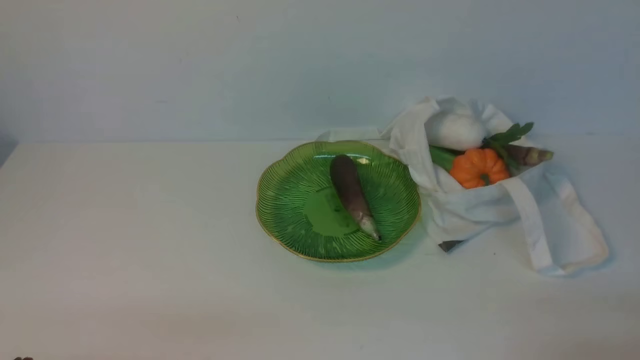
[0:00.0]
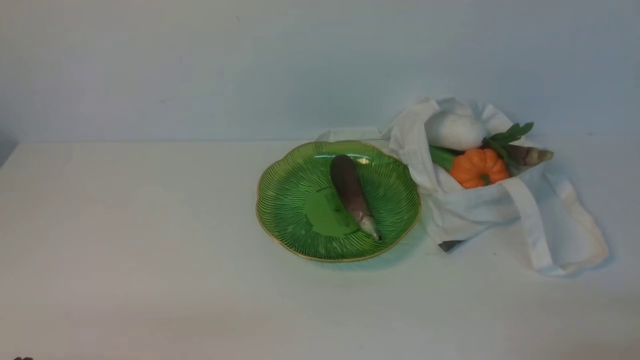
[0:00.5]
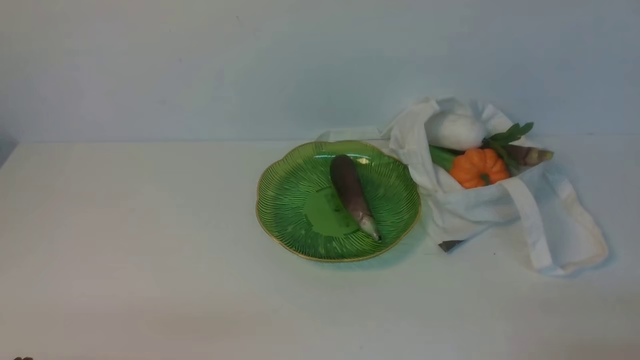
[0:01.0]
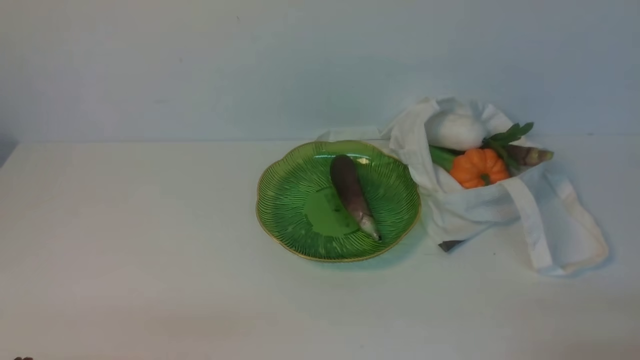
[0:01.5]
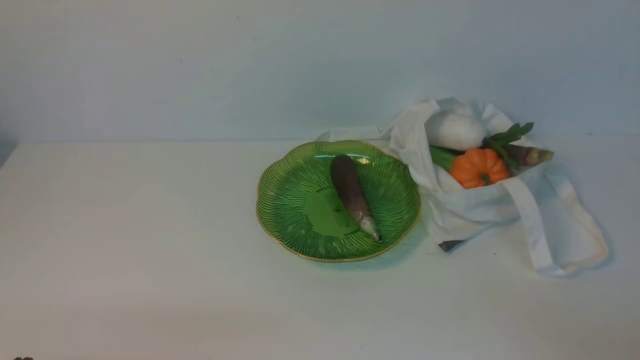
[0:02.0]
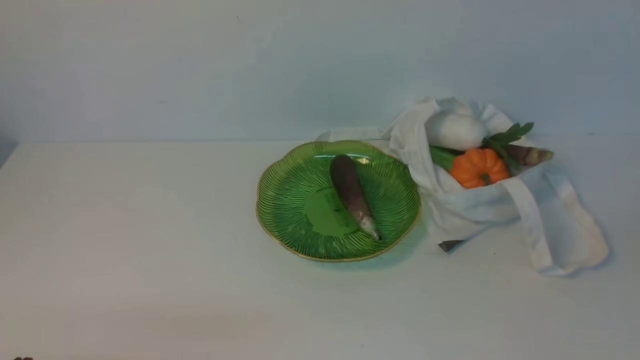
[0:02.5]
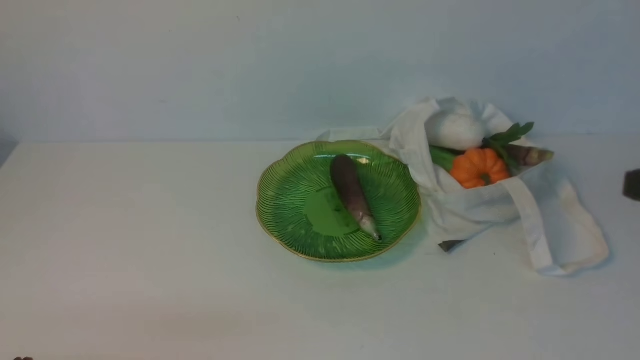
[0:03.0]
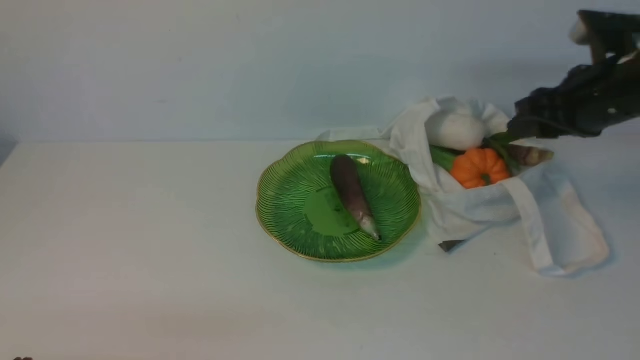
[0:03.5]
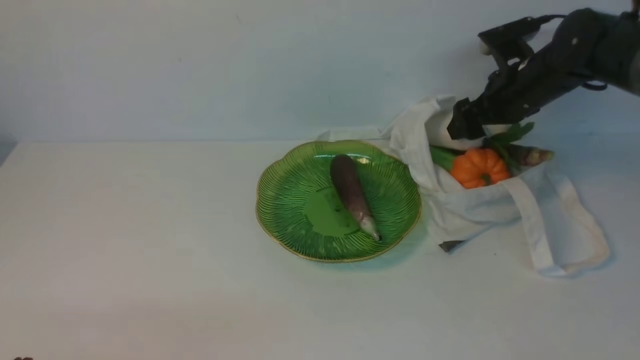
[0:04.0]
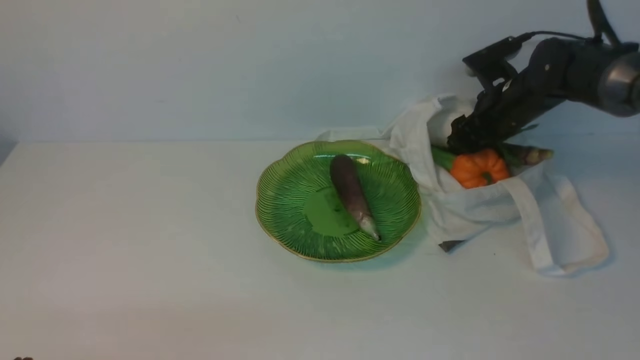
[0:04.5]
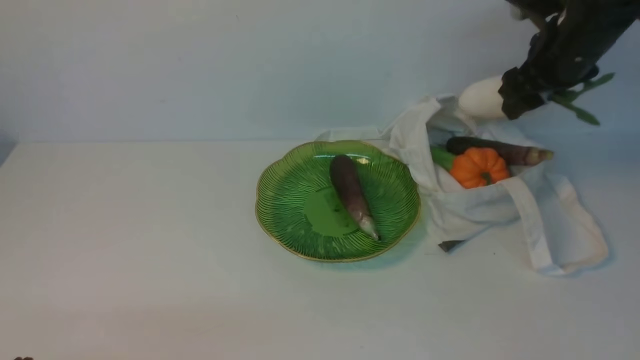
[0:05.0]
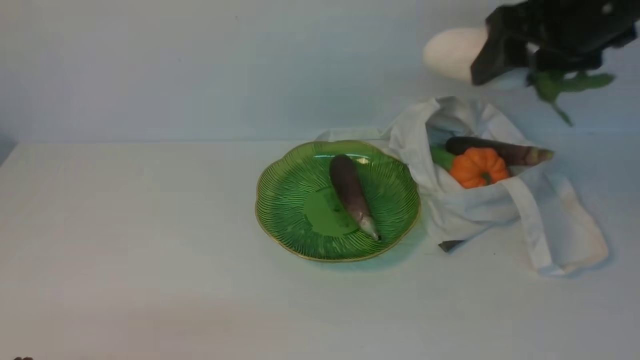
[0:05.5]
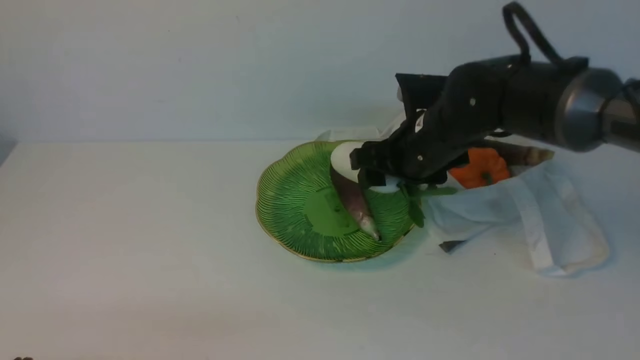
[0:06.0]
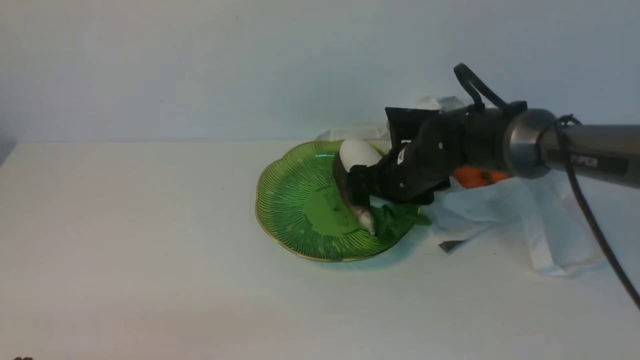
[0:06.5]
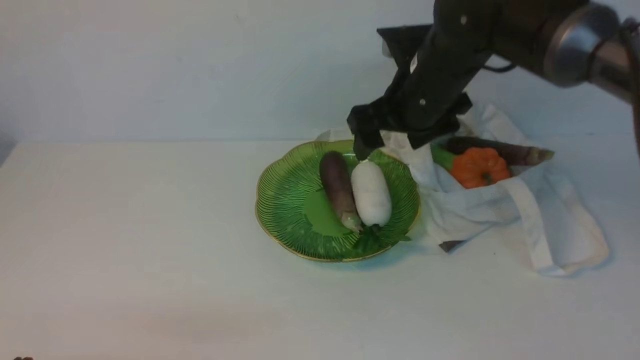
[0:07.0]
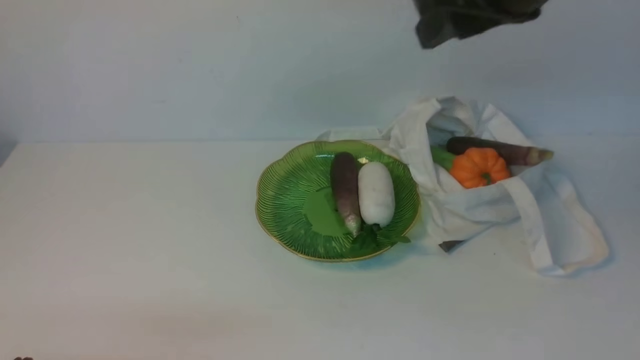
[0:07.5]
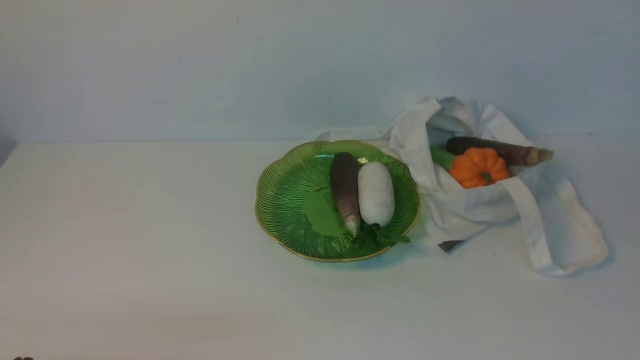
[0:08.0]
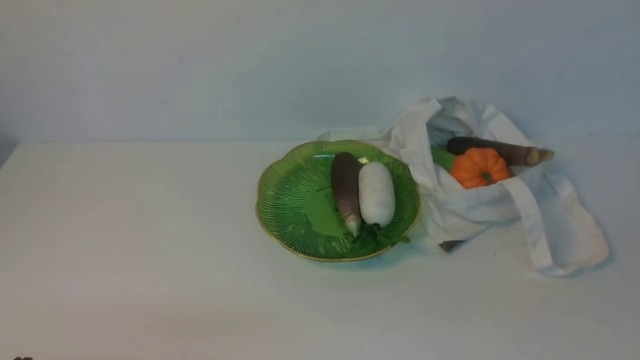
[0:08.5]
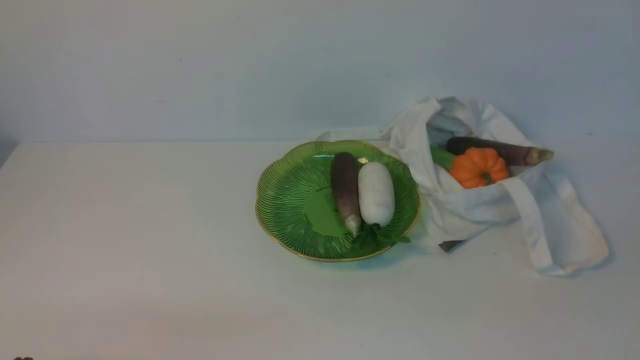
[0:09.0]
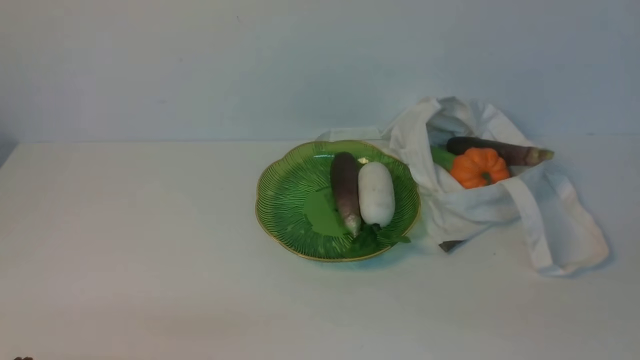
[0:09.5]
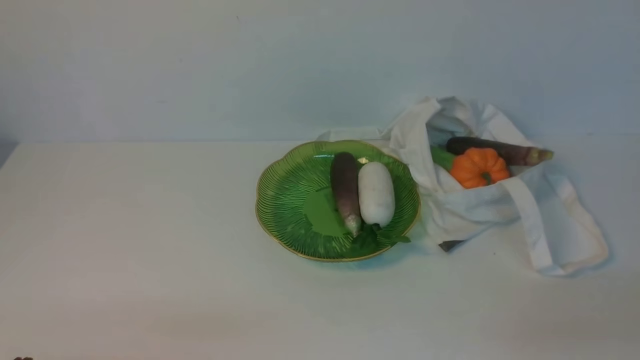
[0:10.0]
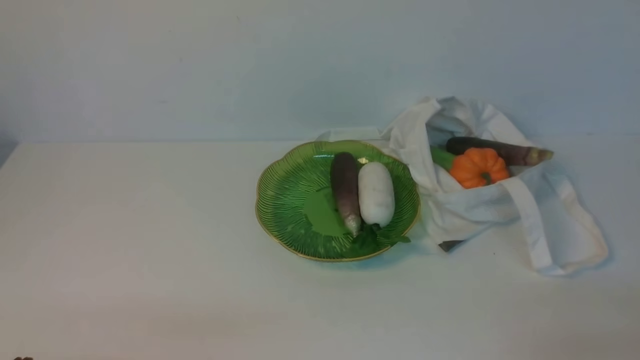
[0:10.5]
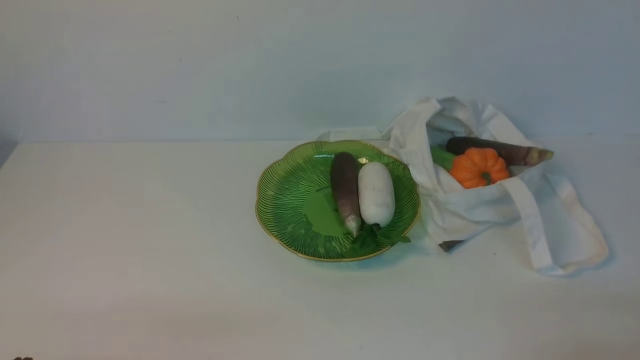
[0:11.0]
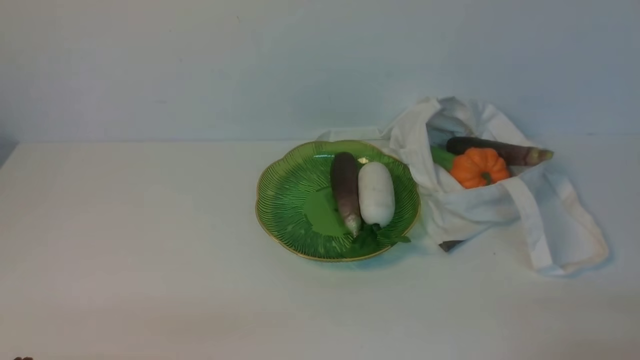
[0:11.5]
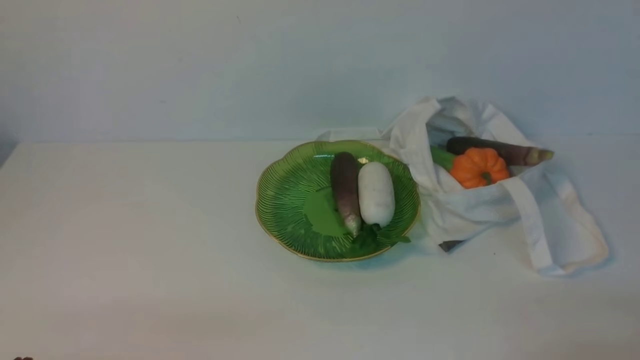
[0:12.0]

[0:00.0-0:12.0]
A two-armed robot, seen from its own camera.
Task of the whole recording: take vegetables from cloth bag on white table place on plate.
Step, 0:00.0 to 0:04.5: Grasp the radish with right gripper.
Step, 0:05.0 to 0:06.5: Place the radish on the plate with right gripper.
0:02.0 to 0:04.0: The right gripper is displaced forward by approximately 40 cm, and opens.
0:04.0 to 0:06.0: The right gripper moves to the left and backward, roughly 15 cm, and goes upward and returns, about 15 cm each way.
0:06.0 to 0:08.0: The right gripper moves backward, upward and to the right, roughly 40 cm, and closes.
